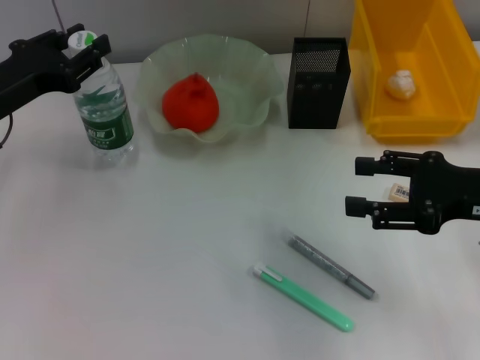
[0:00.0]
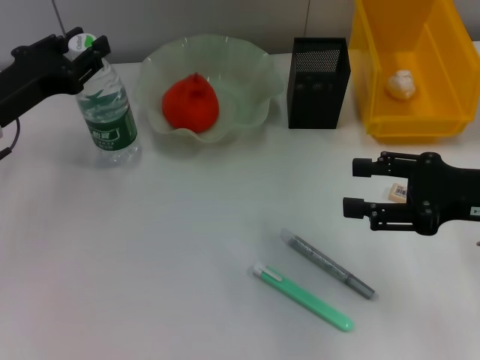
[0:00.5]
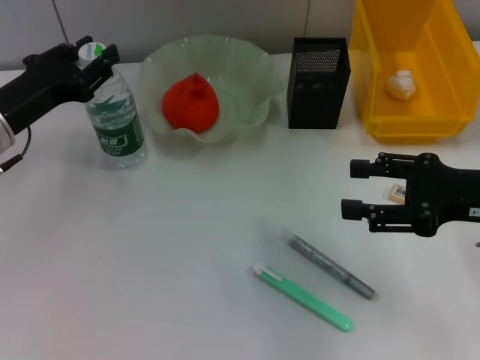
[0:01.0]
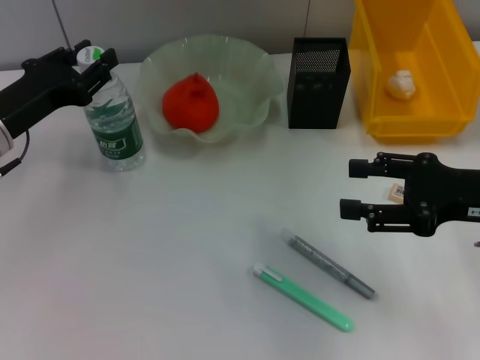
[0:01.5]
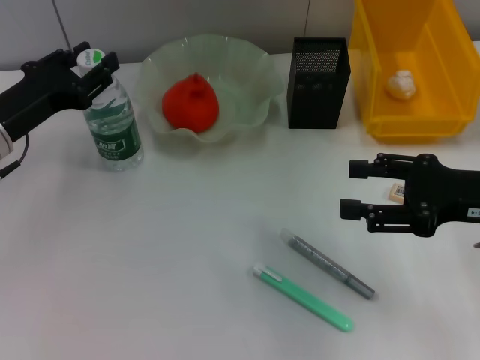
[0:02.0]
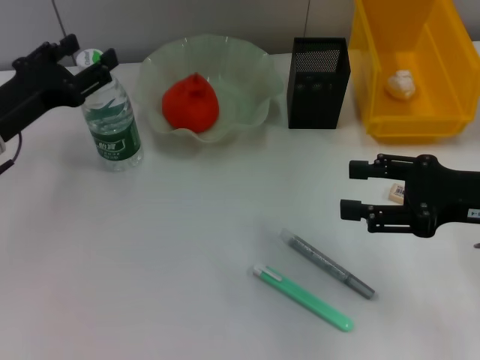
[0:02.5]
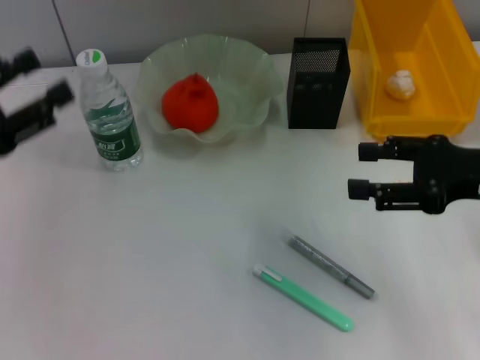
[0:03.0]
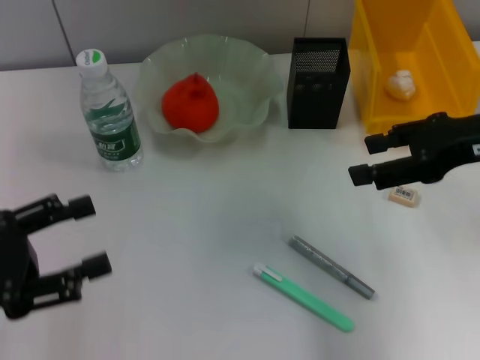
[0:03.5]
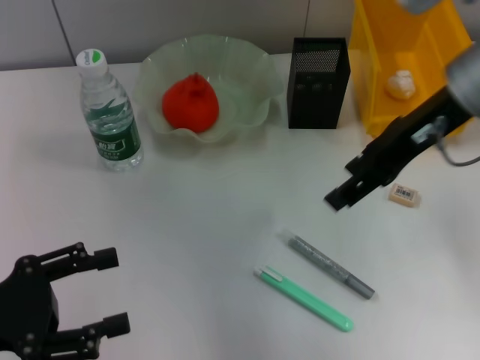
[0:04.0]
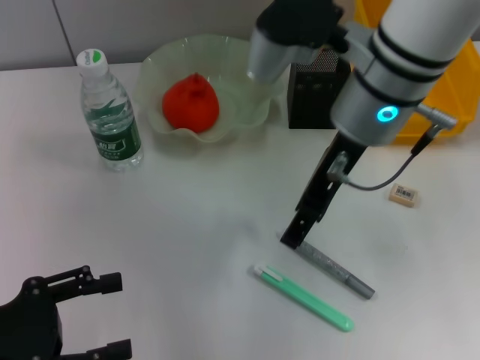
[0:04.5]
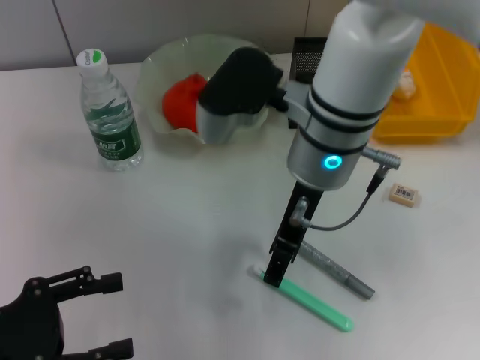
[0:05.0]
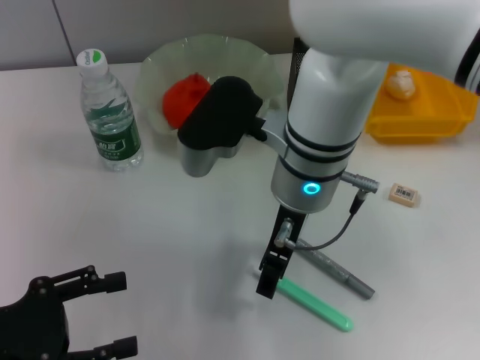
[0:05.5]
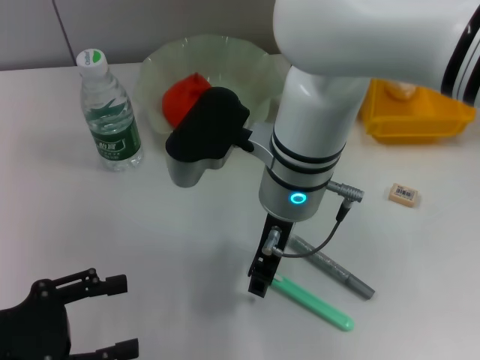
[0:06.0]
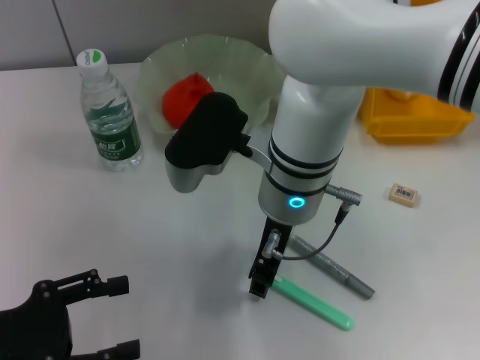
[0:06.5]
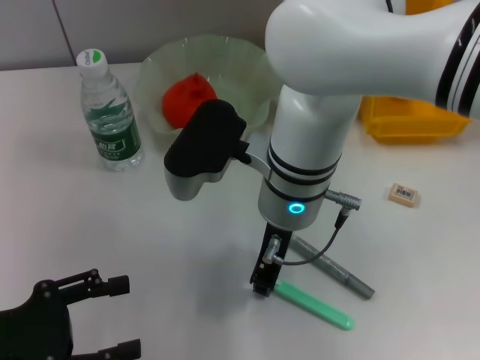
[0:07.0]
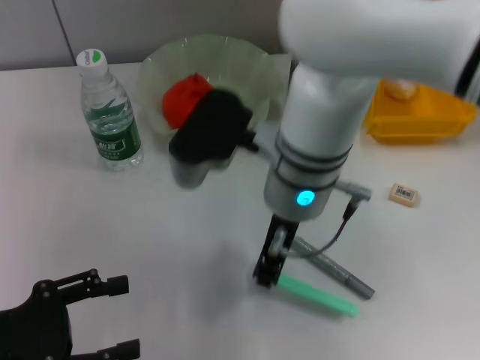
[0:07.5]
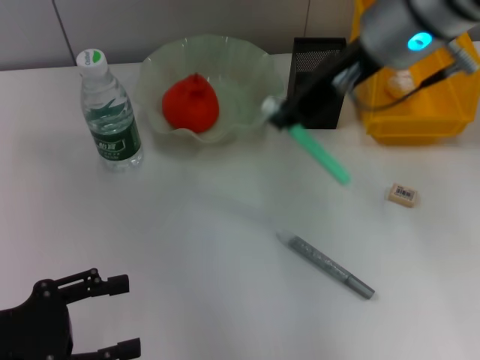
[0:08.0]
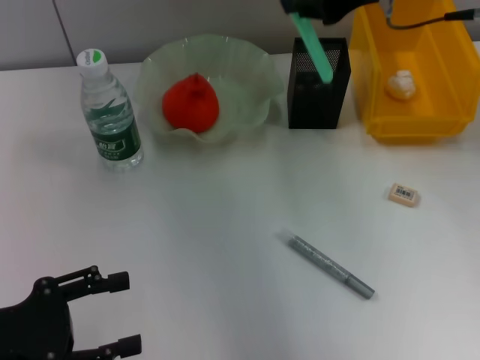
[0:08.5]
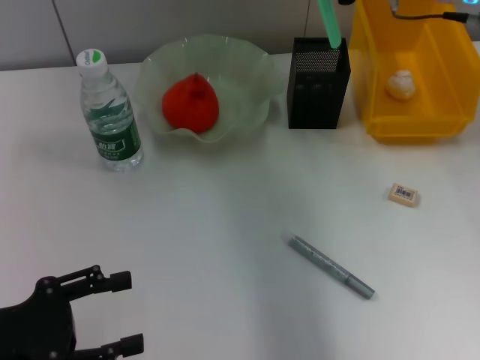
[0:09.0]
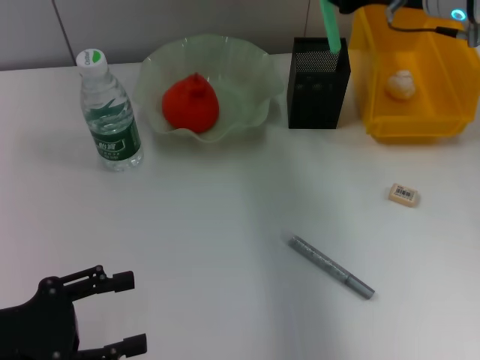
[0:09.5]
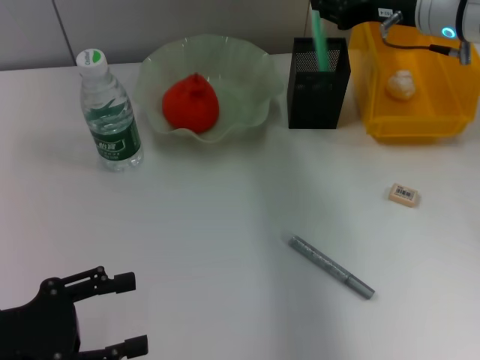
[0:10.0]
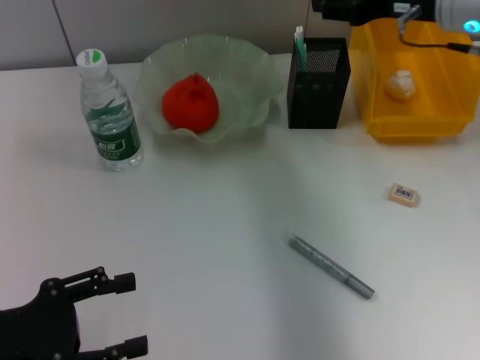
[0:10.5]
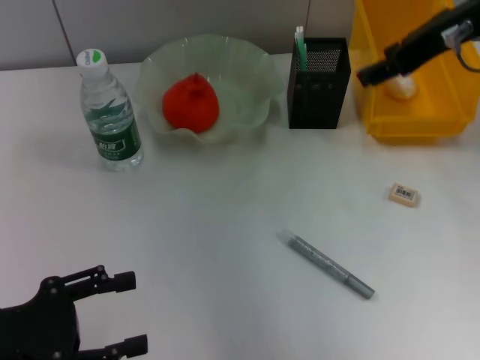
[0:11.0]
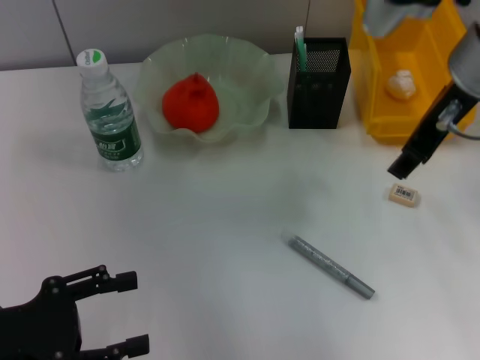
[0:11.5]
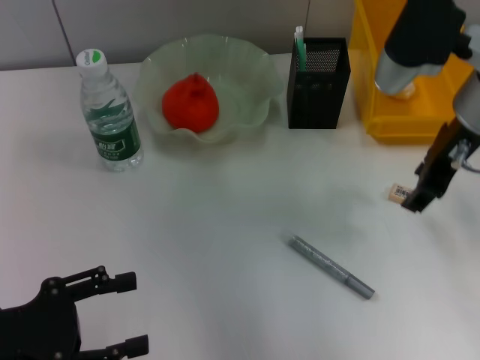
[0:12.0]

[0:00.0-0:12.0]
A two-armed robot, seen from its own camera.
Step, 0:00.0 to 0:02.0: Place the water bottle on the table with the left hand.
Step, 0:02.5 to 0:07.0: Grab the blue utility knife with the right hand.
Step, 0:07.5 to 0:10.0: Place the blue utility knife into the pen holder with the right hand.
0:00.0 to 0:02.0: There are only small adjustments of the grippers.
0:02.0 to 0:04.0: The left gripper travels backward by some 15 cm, and opens. Meanwhile the right gripper heads upward, to the left and forward, covering roughly 15 cm.
0:04.0 to 0:06.0: The right gripper travels to the left and downward by some 20 cm.
0:06.0 to 0:08.0: The right gripper is displaced upward and to the right by some 15 cm, and closes.
0:08.0 to 0:10.0: The right gripper travels to the right, downward and forward by roughly 15 cm.
0:10.0 to 0:12.0: The right gripper heads backward, covering about 10 cm, goes upward and returns, about 10 cm each way, and opens.

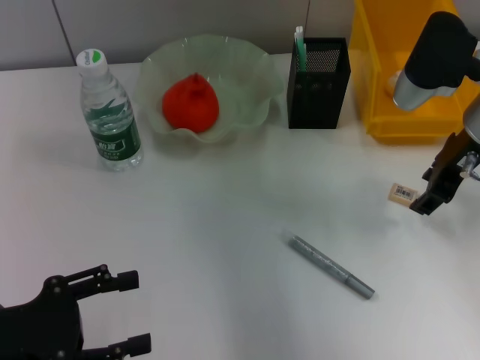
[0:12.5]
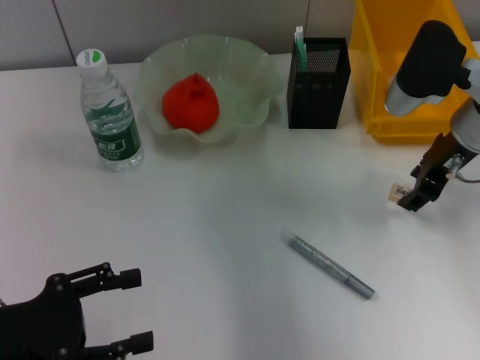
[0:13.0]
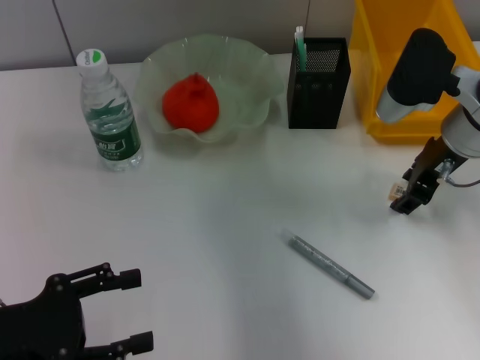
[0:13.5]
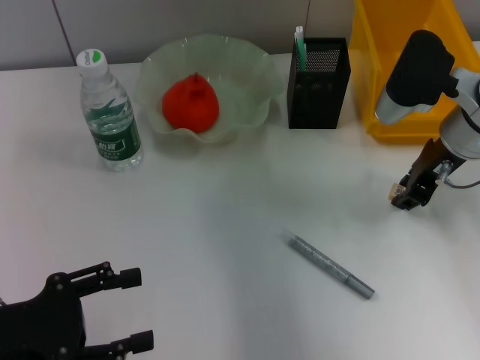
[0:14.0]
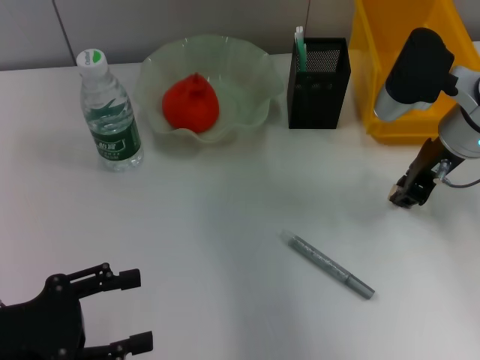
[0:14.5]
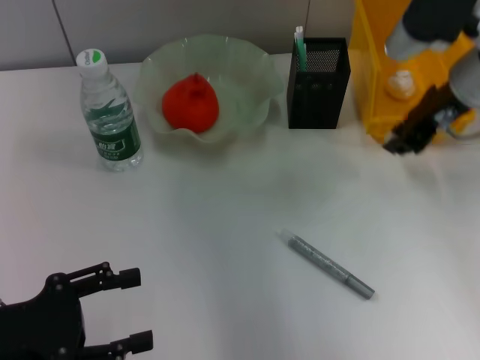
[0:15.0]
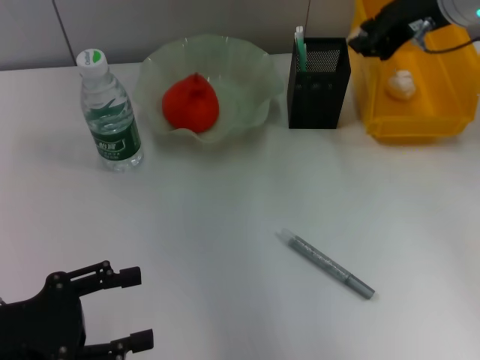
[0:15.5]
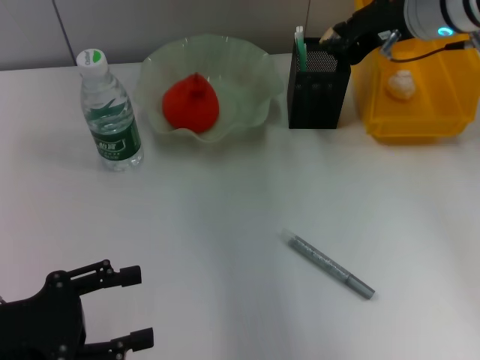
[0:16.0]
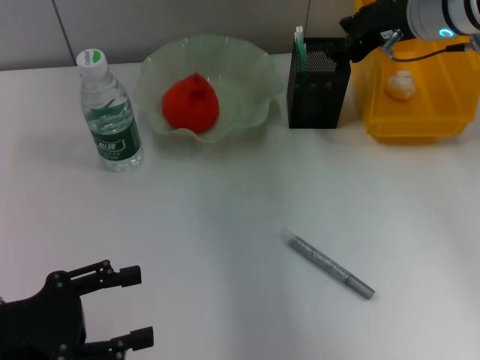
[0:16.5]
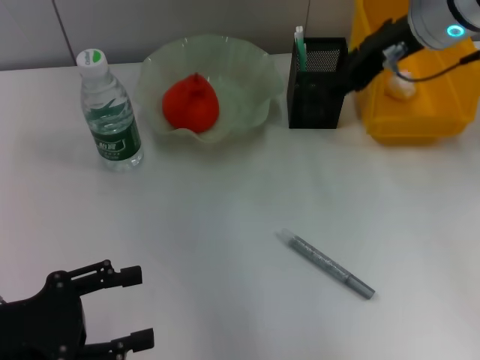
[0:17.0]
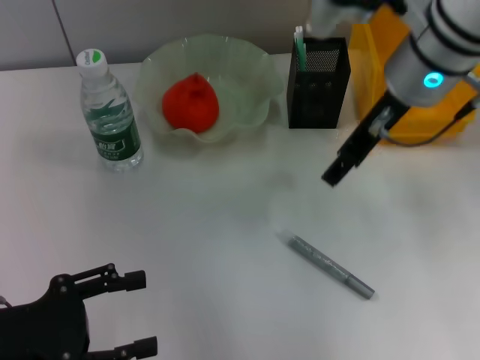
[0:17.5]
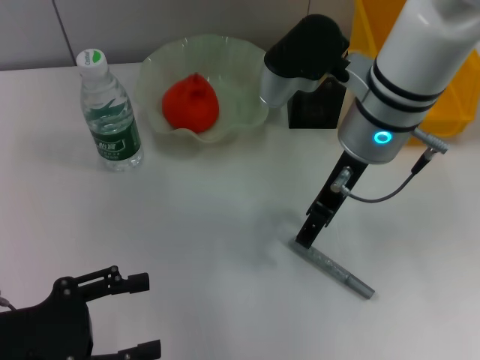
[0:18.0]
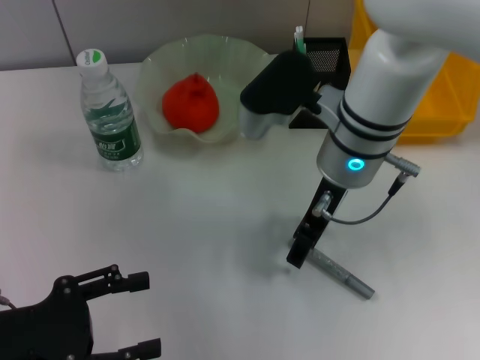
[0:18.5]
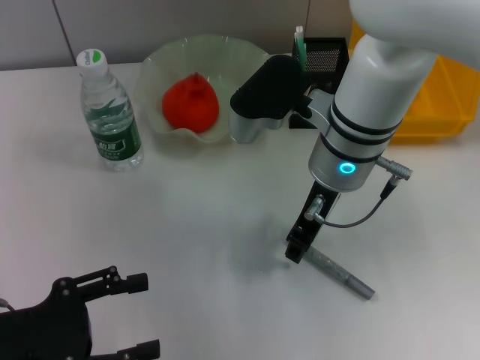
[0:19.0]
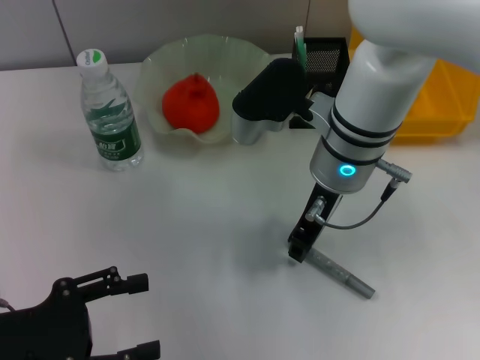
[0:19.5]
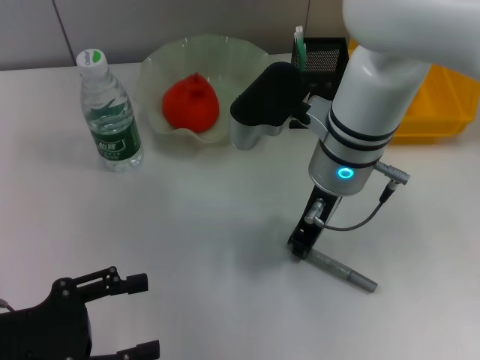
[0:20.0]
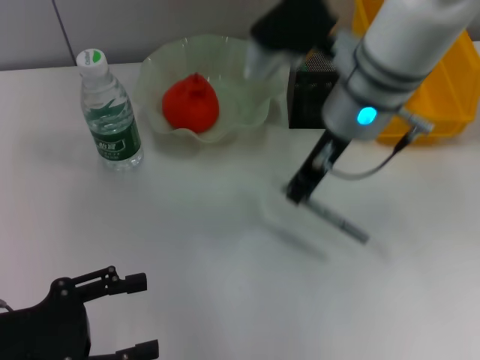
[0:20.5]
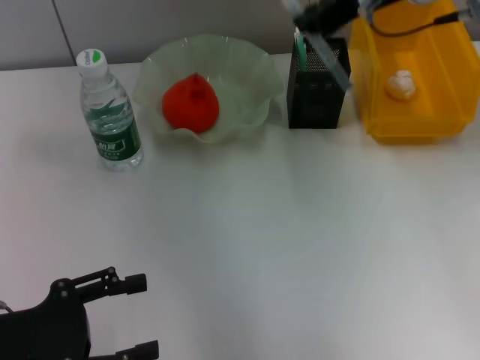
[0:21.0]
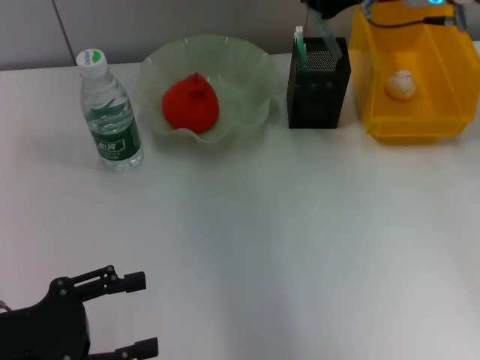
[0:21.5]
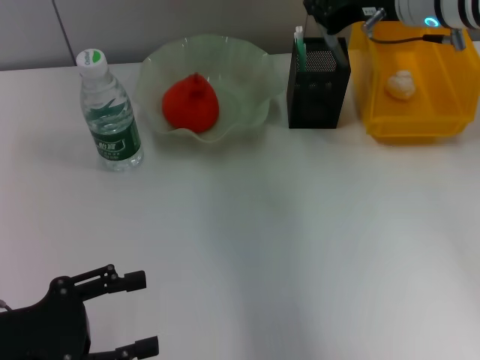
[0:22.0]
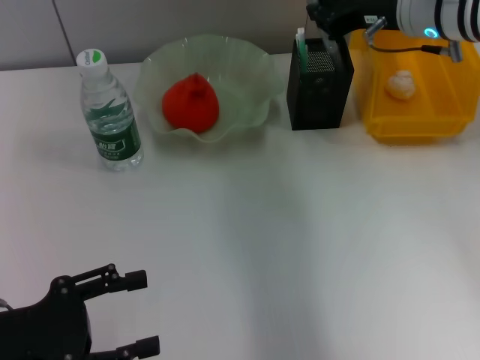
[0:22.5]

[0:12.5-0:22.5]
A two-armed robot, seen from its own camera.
Step, 0:12.5 to 0:14.5: Grab the eraser with the right hand.
Step, 0:15.0 to 0:16.5: Put the eraser into the pen holder with the right hand.
Step, 0:17.0 to 0:20.0: Grab the gray glue with the right hand.
0:12.5 to 0:14.5: The right gripper closes its fingers.
0:14.5 to 0:16.5: The right gripper moves forward and upward, approximately 10 cm.
0:16.5 to 0:18.5: The right gripper shifts roughly 15 cm to the left, backward and downward, and opens up.
0:18.5 to 0:20.5: The right gripper closes.
0:20.5 to 0:22.5: The right gripper is displaced to the right and forward by roughly 10 cm.

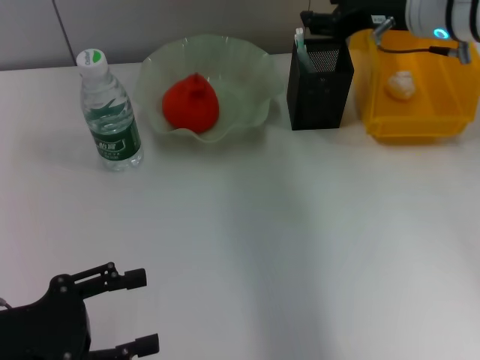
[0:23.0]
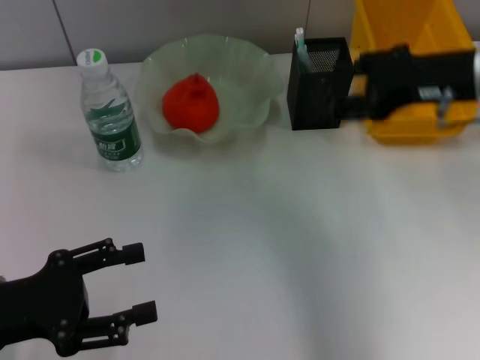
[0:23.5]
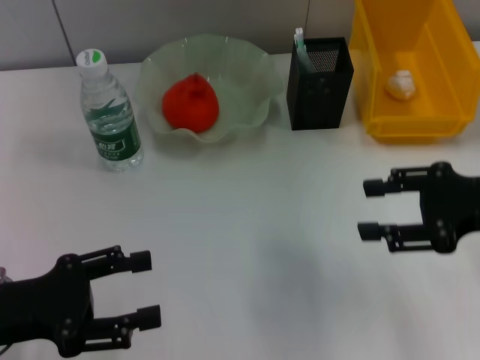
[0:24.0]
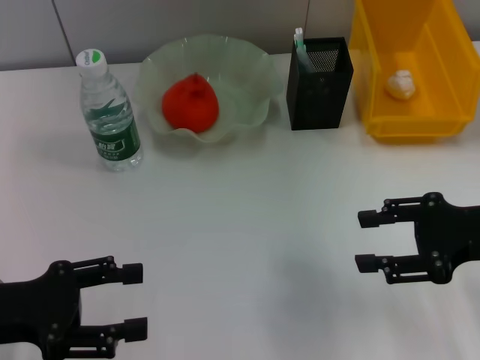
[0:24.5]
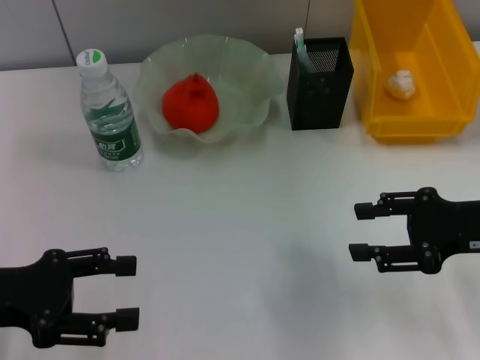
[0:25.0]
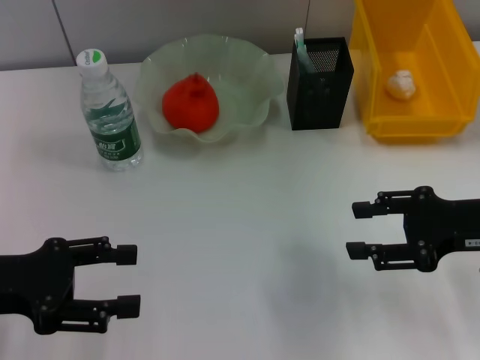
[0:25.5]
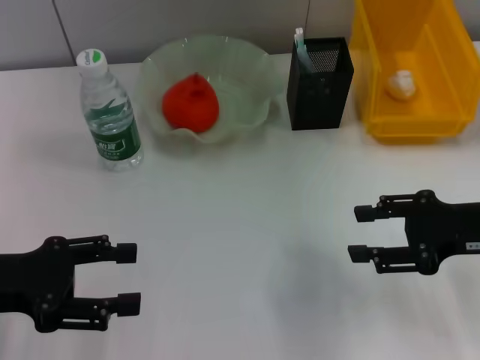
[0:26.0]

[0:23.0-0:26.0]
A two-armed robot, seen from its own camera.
0:23.0 to 0:24.5: The right gripper heads backward, to the right and downward, covering some 20 cm, and opens its fingers.
0:24.5 to 0:26.0: There are only small adjustments of the grippers.
